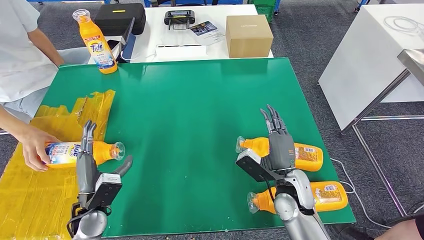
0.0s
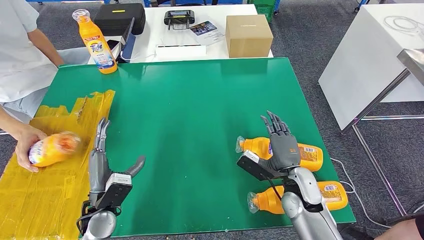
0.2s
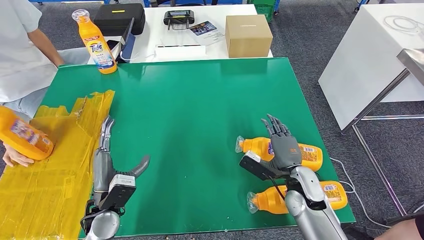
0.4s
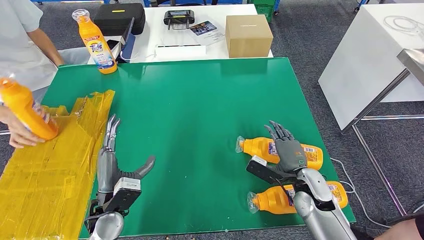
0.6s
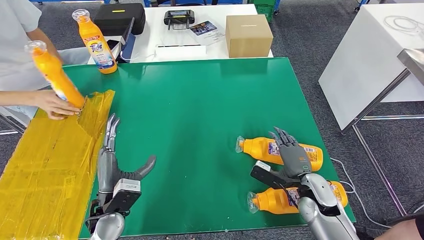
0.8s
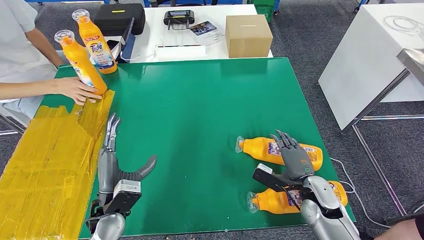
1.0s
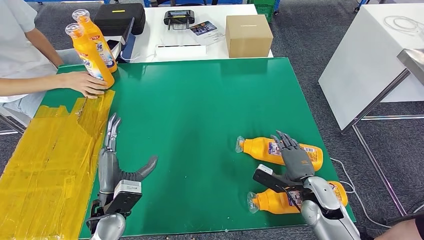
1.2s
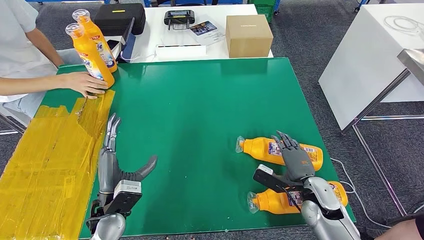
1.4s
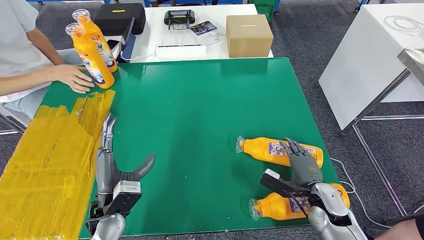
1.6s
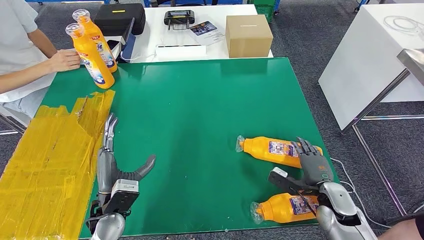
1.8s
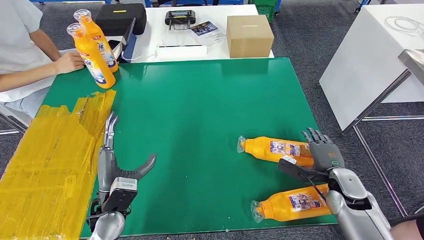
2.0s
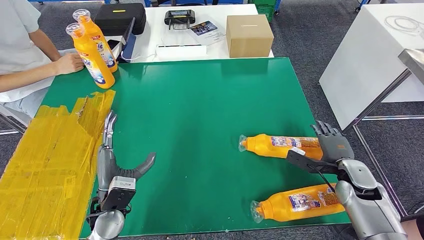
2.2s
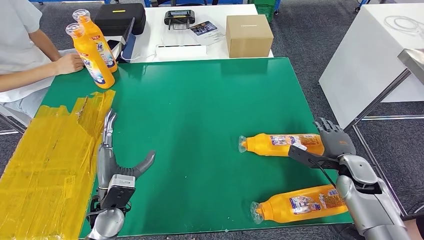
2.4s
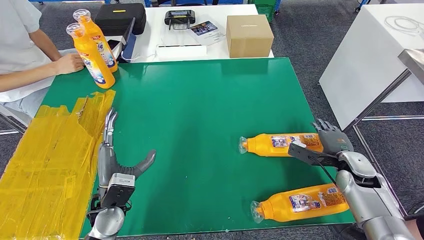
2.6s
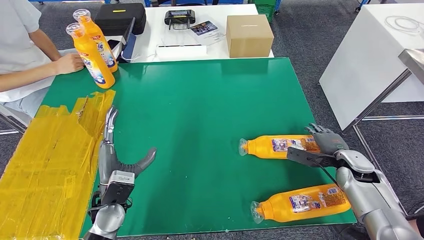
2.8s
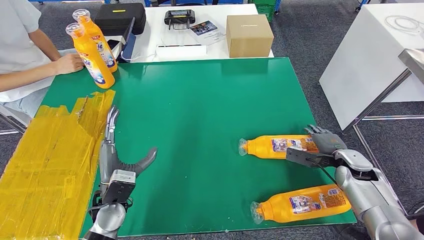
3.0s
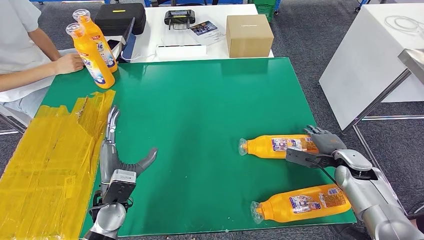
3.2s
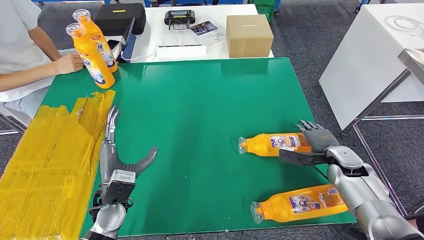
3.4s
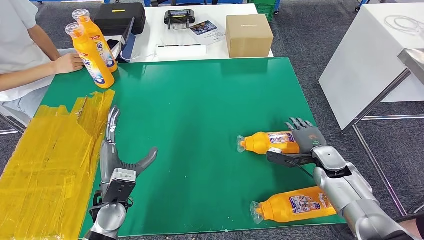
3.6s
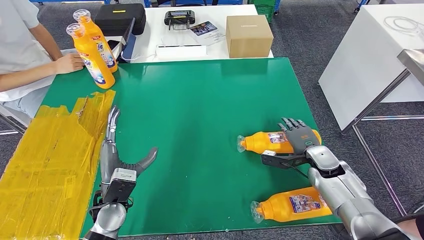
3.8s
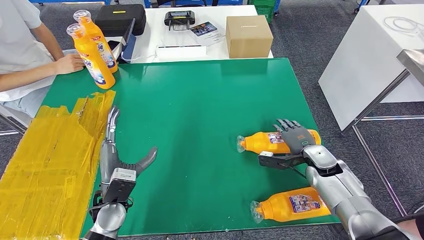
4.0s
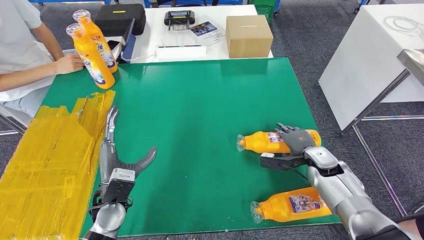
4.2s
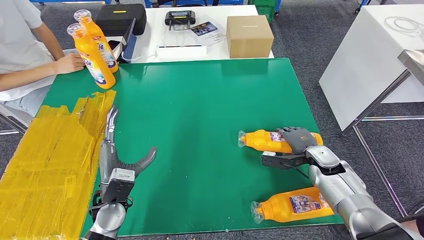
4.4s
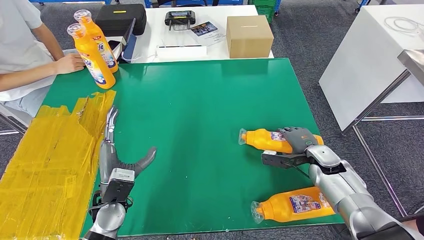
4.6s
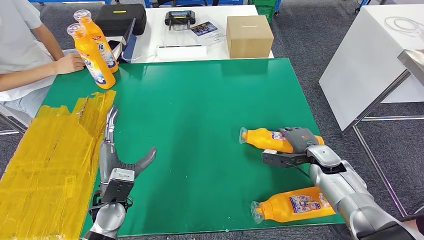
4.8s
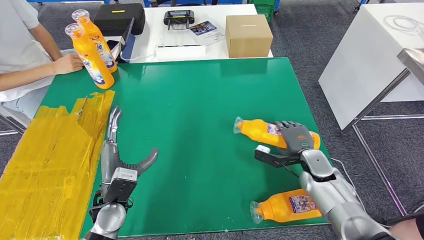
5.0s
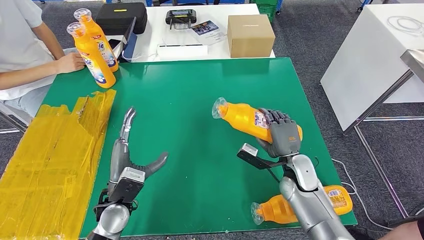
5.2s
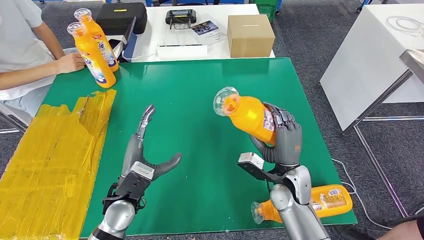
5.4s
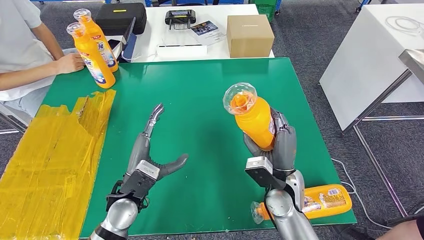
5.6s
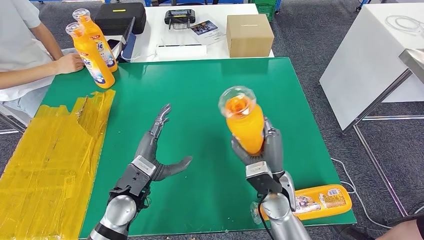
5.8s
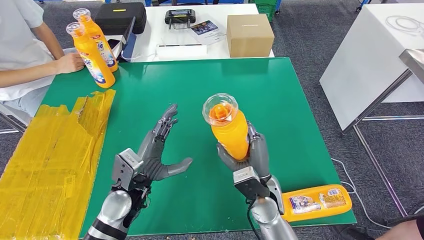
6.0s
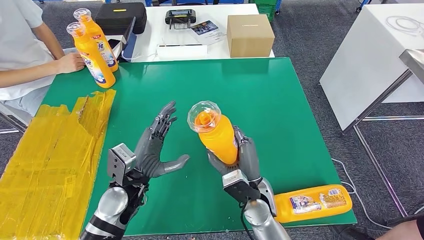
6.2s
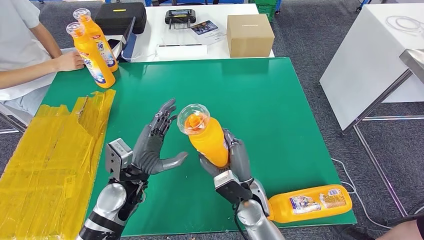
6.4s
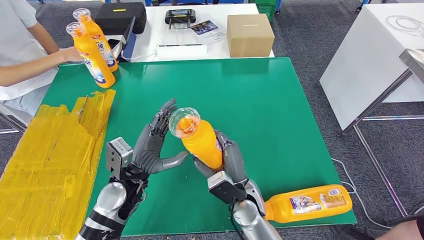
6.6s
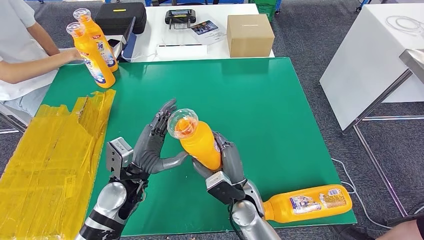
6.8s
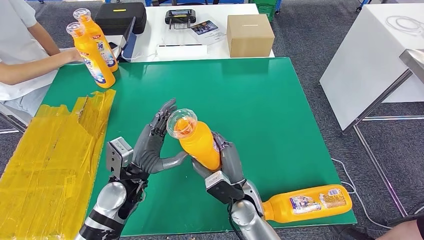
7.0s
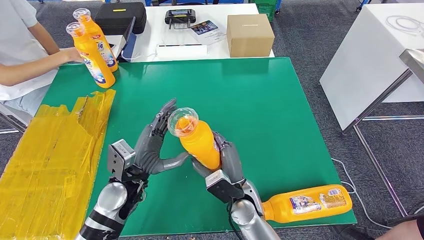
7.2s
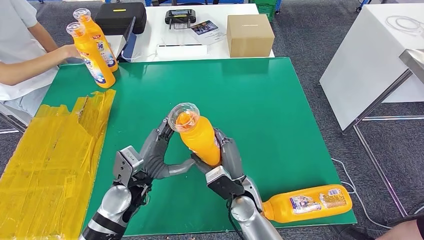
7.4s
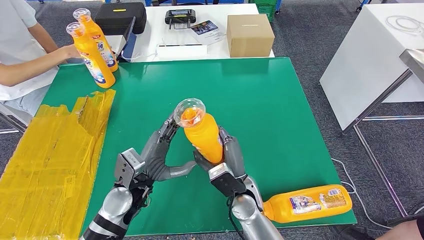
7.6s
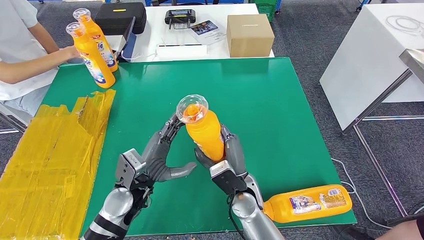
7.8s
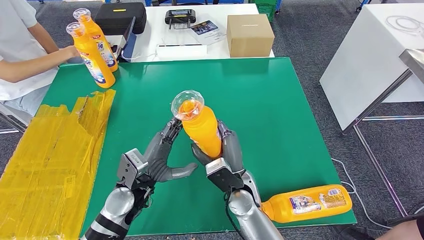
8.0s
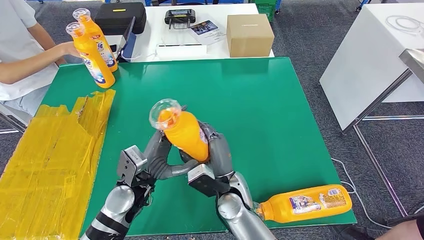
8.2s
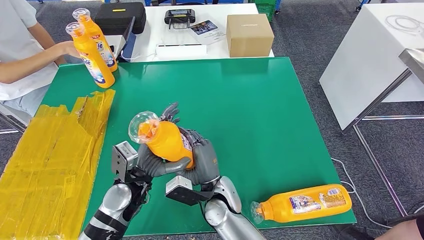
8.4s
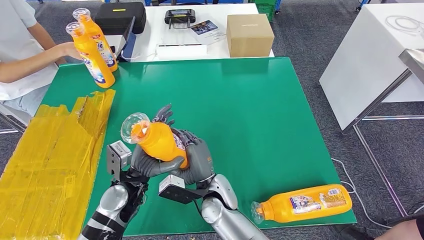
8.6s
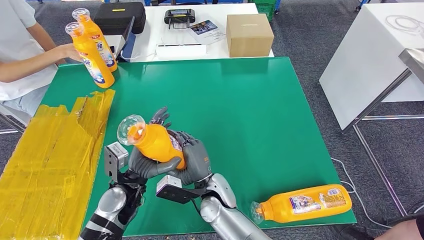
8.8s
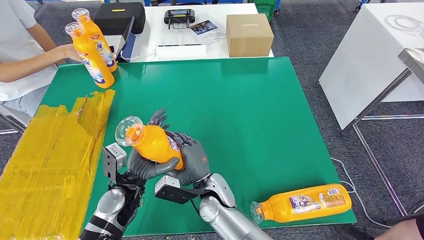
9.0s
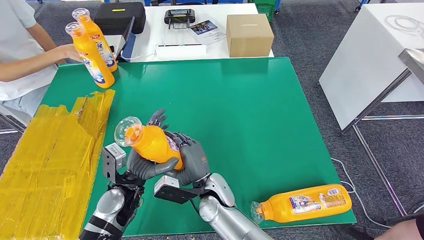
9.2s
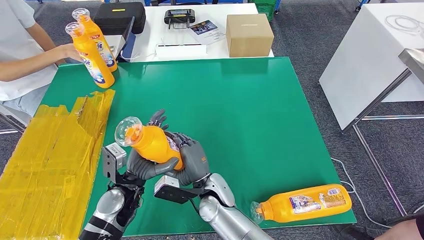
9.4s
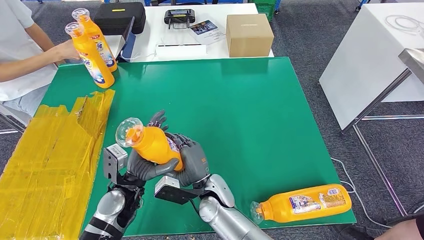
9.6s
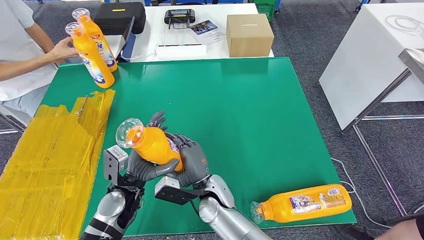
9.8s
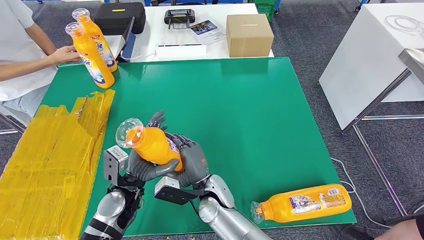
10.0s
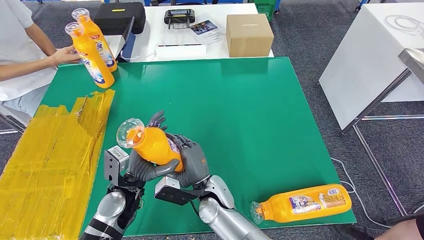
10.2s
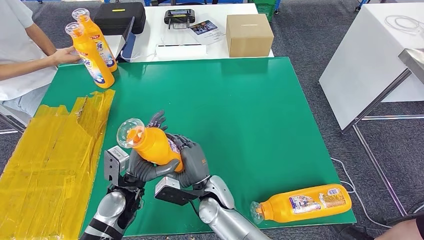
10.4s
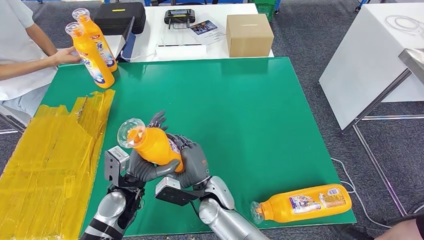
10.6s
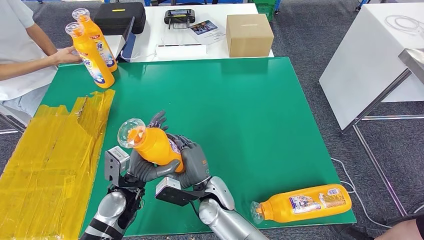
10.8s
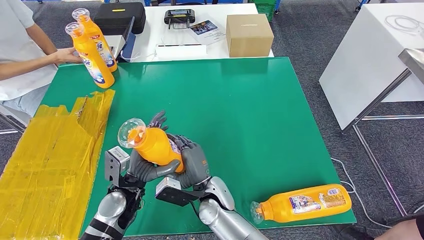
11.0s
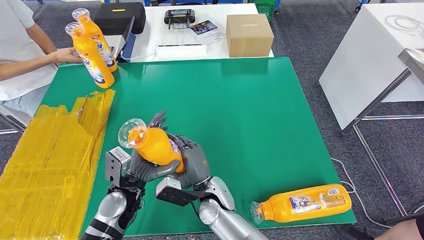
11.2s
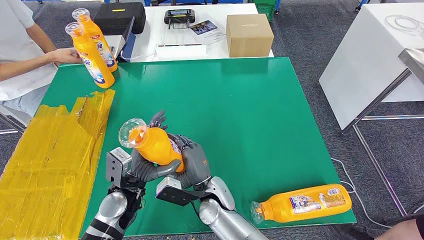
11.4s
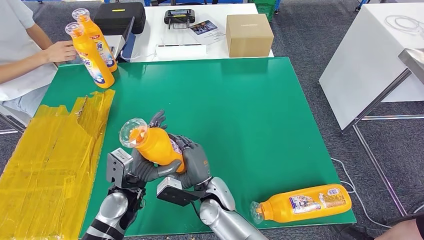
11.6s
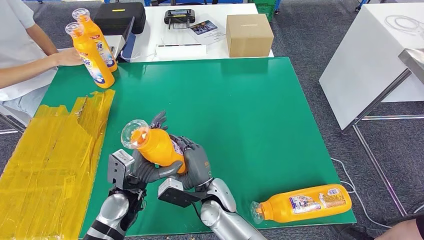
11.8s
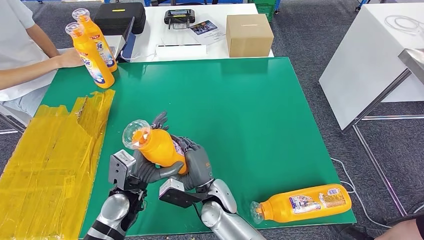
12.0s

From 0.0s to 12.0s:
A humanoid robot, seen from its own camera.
Step, from 0.0s to 6.6s: Pick up the bottle from the table.
From 0.0s to 1.6s: The left hand shifts roughly 5 cm to the right. The right hand moves to the right and downward, some 10 cm.
From 1.6s to 3.0s: The right hand moves to the right and forward, about 15 cm.
From 3.0s to 4.4s: The right hand goes roughly 5 cm to the left.
From 6.0s to 7.6s: The right hand shifts by approximately 5 cm.
From 7.6s to 9.0s: The right hand is displaced to the left by roughly 10 cm.
From 9.0s to 10.4s: The hands make only small movements.
From 10.4s to 12.0s: Both hands stay put.

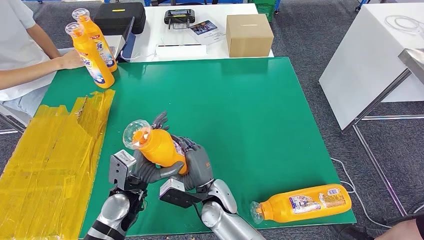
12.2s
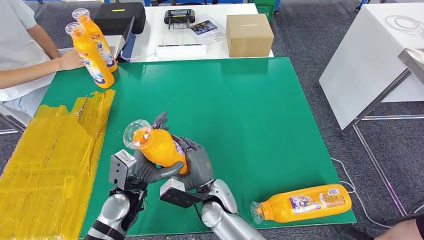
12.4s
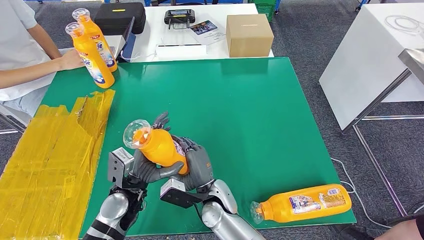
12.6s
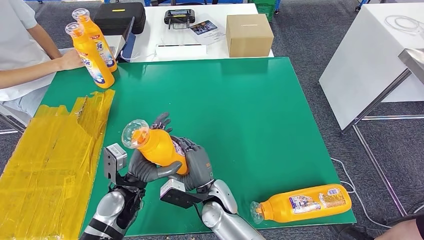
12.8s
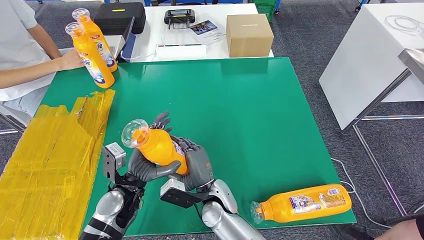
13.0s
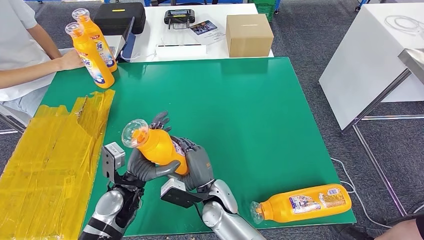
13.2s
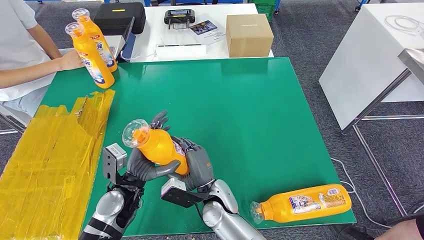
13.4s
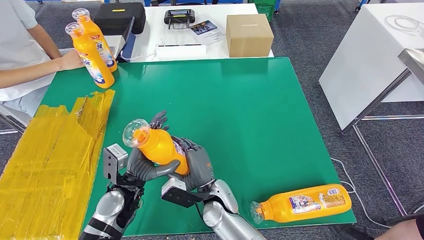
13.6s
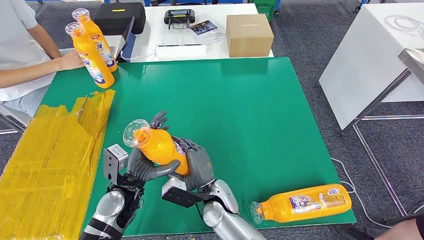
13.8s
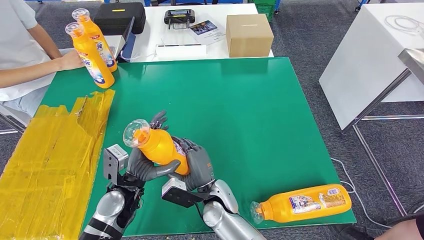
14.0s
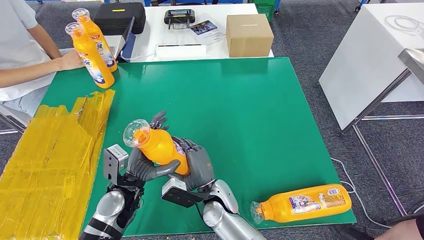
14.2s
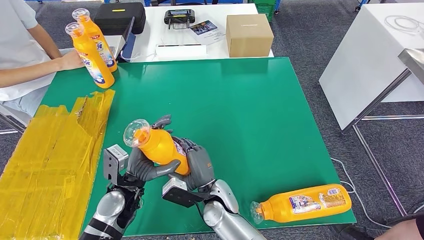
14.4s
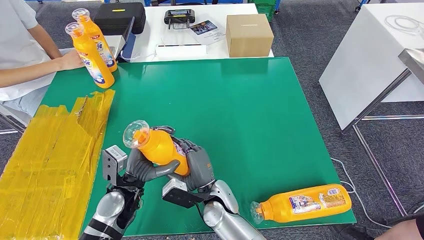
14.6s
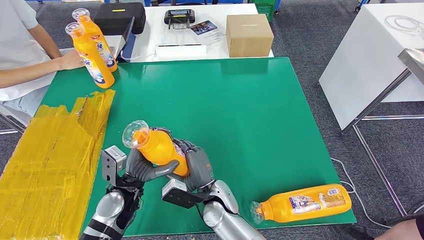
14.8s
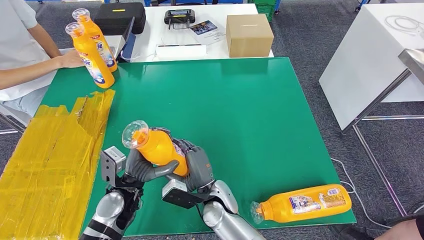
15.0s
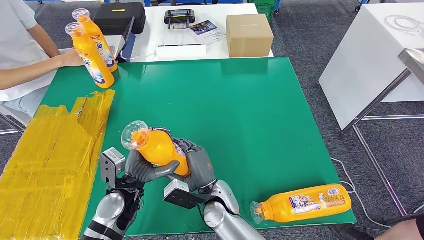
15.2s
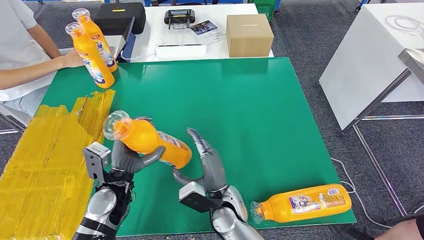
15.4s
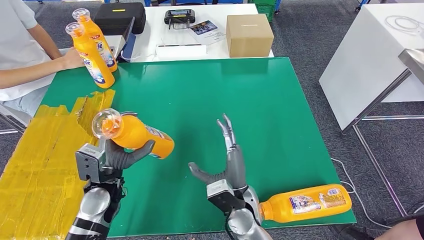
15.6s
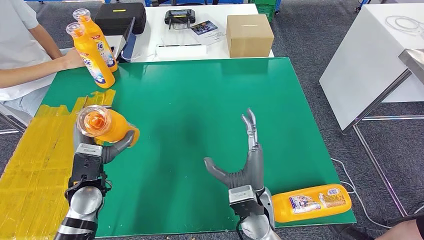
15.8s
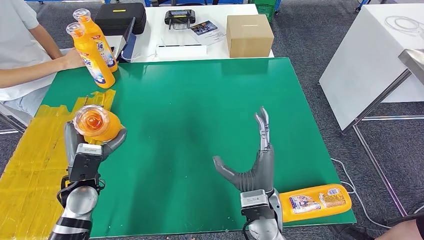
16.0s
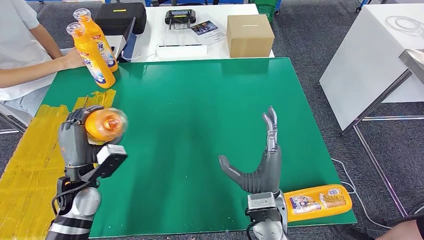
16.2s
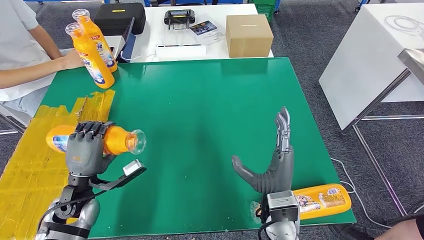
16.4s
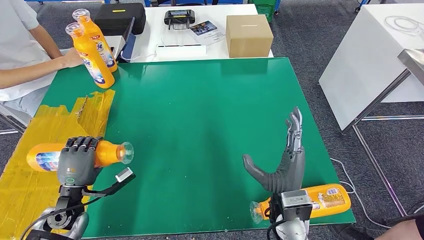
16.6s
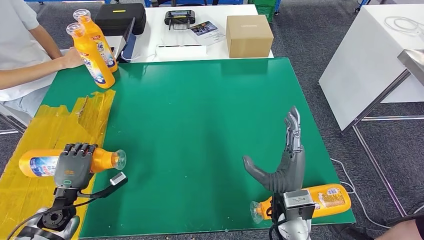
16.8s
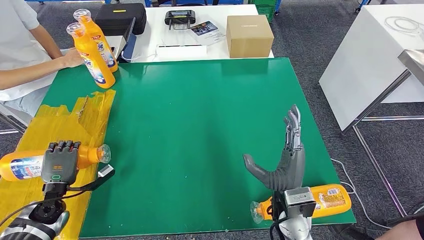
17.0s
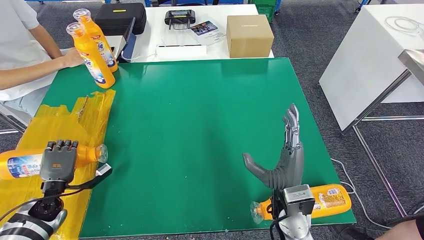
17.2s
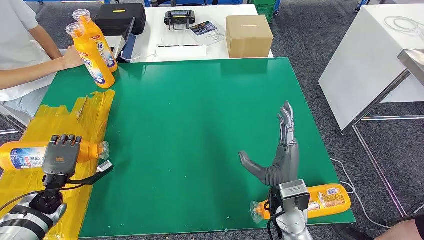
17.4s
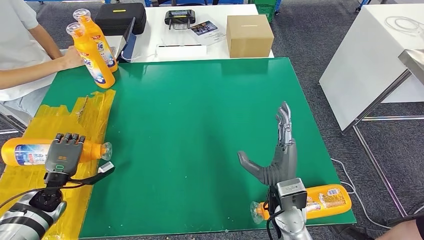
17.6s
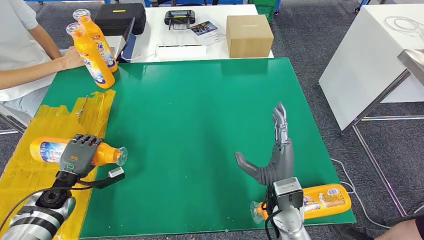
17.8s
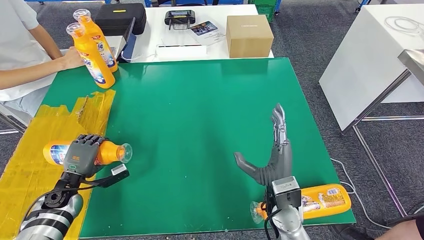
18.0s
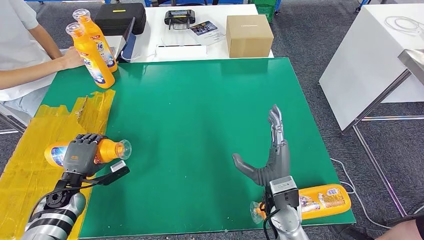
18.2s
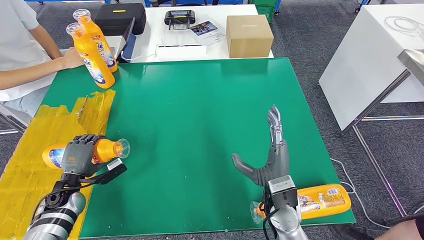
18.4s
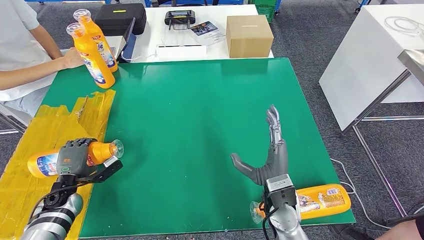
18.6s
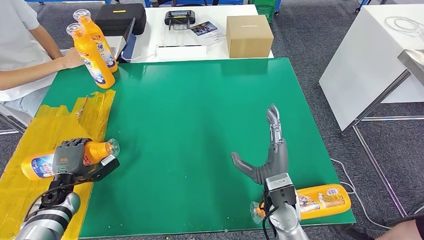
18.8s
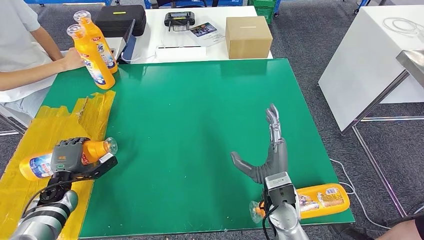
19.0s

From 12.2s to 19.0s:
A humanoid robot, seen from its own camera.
Step, from 12.2s to 18.0s: Flip the bottle to face forward.
From 12.2s to 13.6s: There are only small adjustments of the hands.
From 13.6s to 15.0s: The two hands keep their place.
From 15.0s to 16.2s: The left hand shifts about 10 cm to the left; the right hand shifts roughly 15 cm to the right and upward.
From 16.2s to 17.6s: The left hand moves to the left and downward, about 15 cm.
